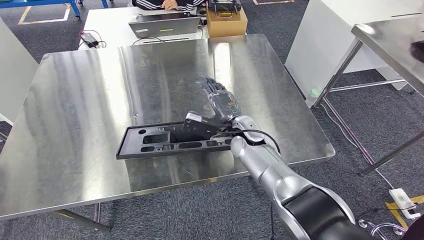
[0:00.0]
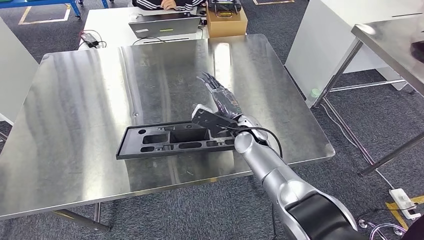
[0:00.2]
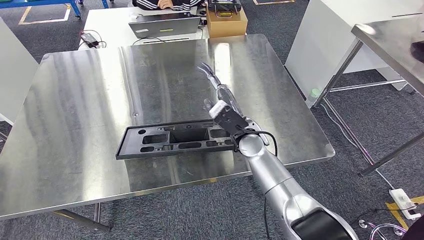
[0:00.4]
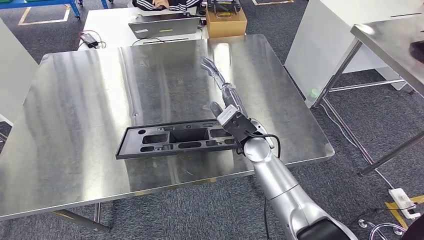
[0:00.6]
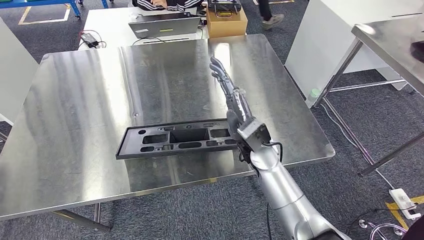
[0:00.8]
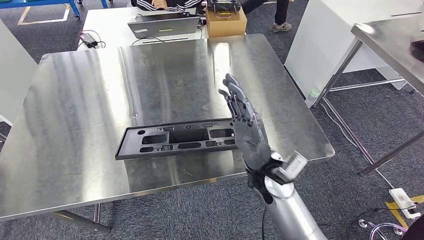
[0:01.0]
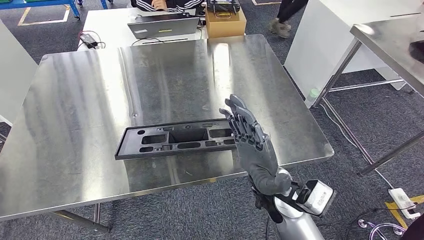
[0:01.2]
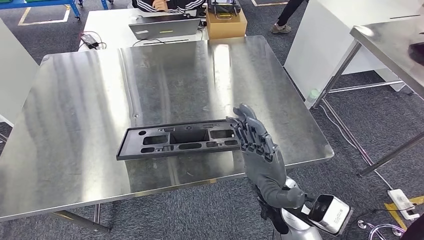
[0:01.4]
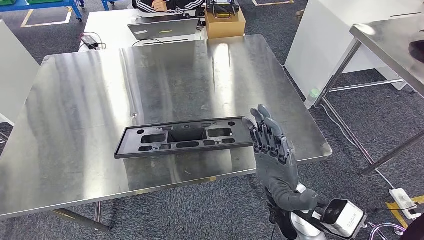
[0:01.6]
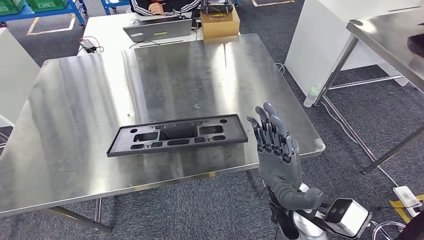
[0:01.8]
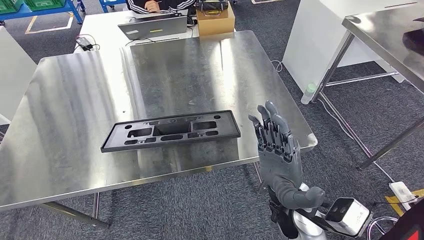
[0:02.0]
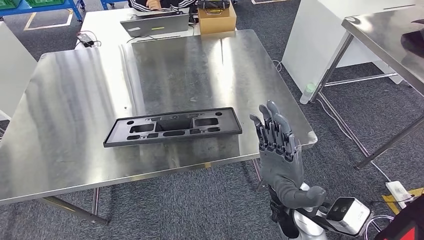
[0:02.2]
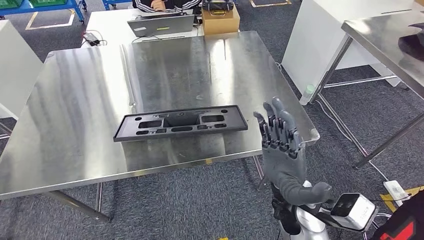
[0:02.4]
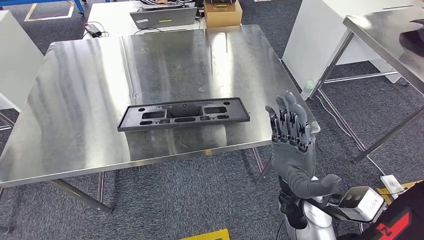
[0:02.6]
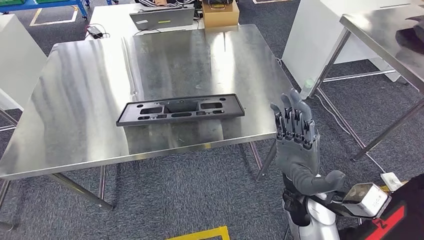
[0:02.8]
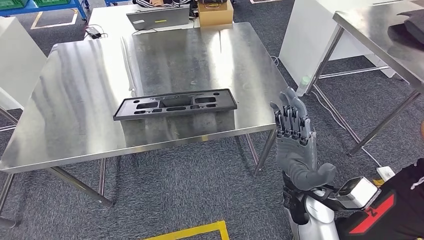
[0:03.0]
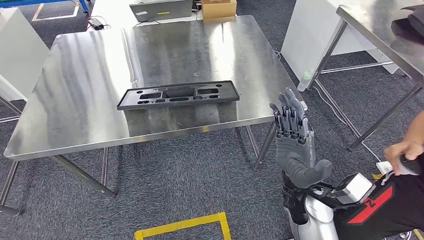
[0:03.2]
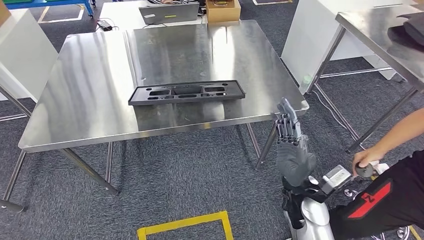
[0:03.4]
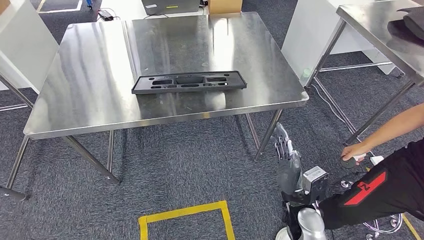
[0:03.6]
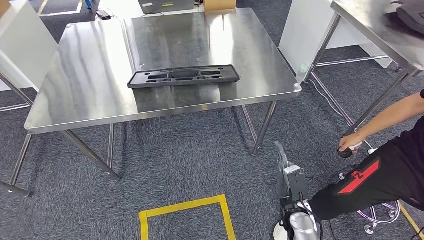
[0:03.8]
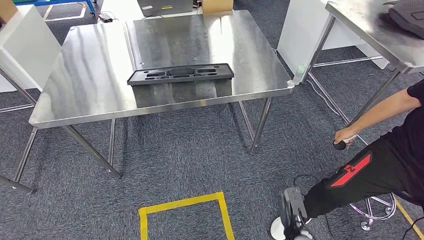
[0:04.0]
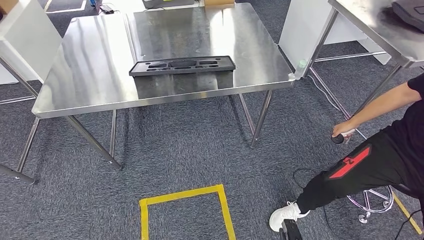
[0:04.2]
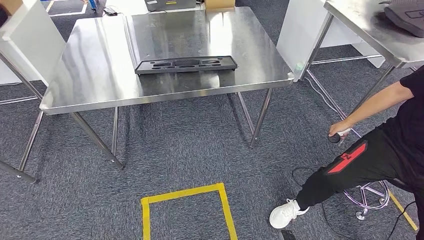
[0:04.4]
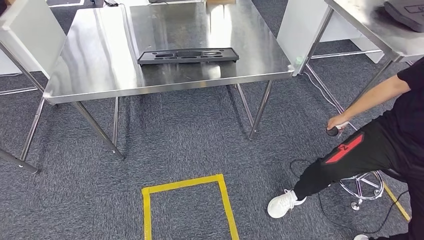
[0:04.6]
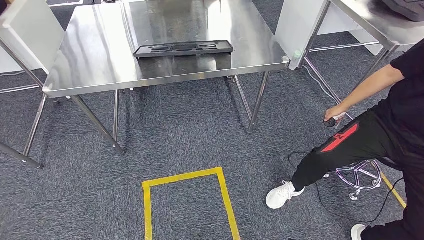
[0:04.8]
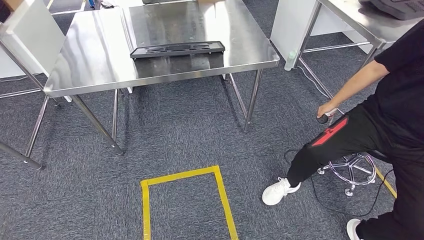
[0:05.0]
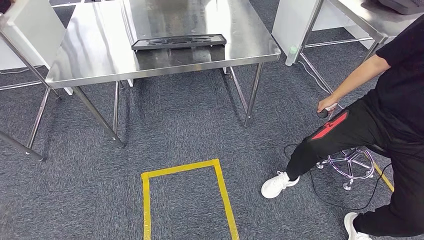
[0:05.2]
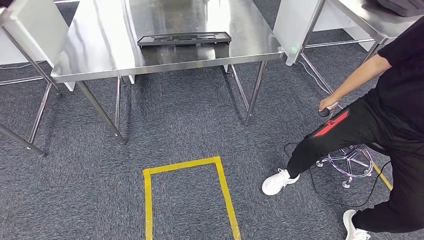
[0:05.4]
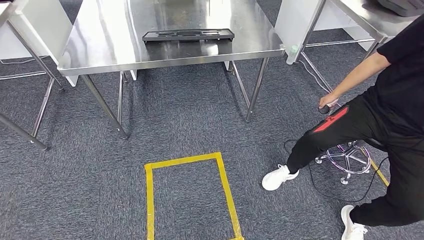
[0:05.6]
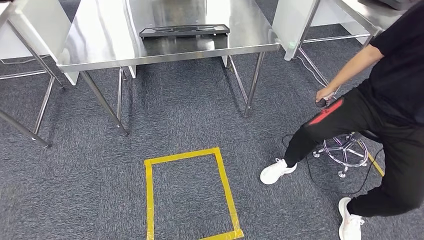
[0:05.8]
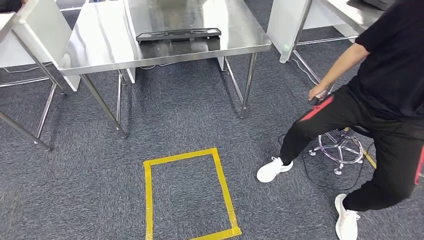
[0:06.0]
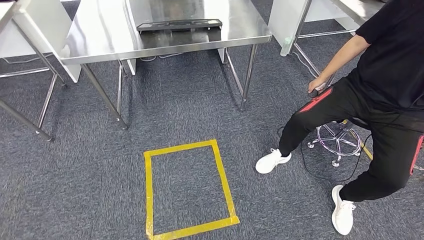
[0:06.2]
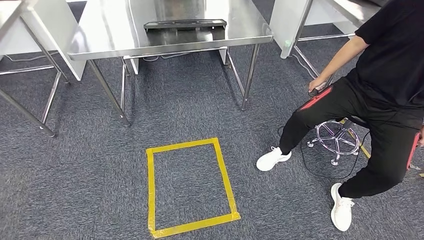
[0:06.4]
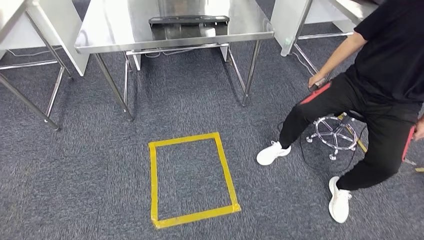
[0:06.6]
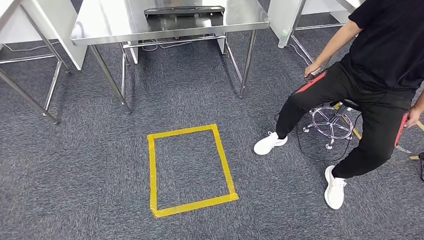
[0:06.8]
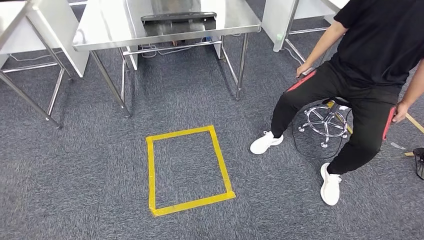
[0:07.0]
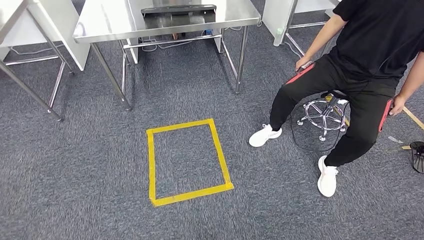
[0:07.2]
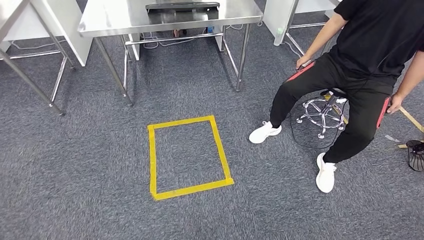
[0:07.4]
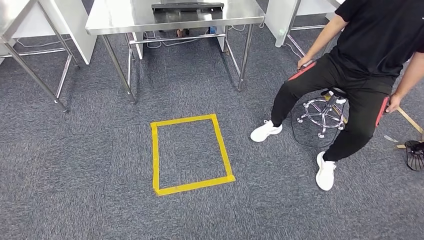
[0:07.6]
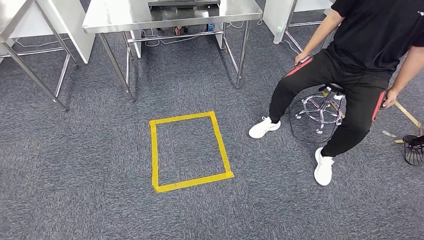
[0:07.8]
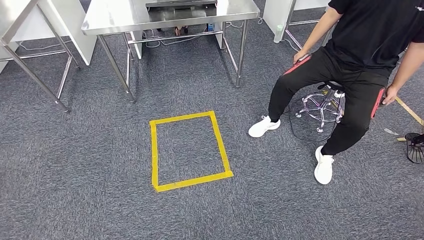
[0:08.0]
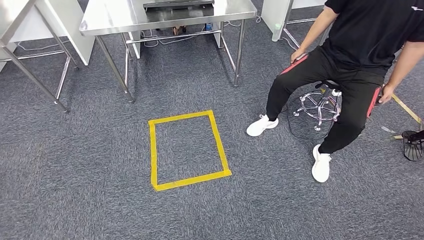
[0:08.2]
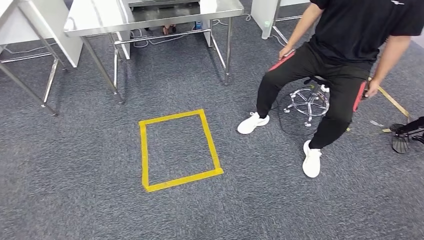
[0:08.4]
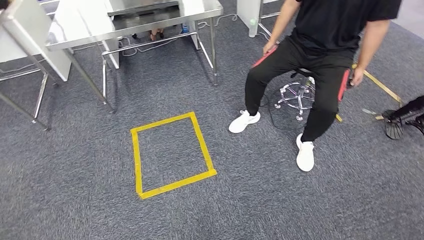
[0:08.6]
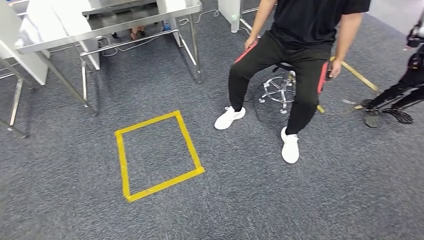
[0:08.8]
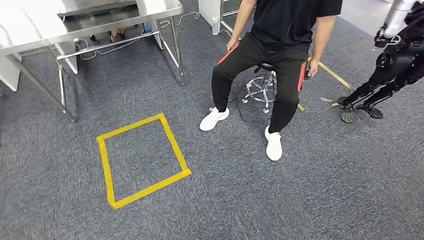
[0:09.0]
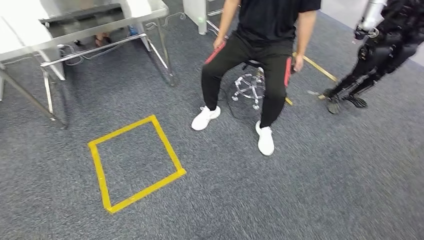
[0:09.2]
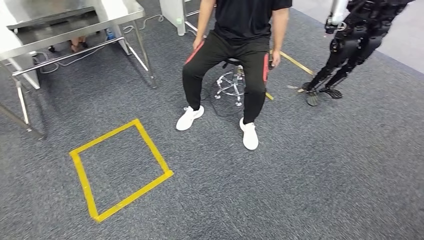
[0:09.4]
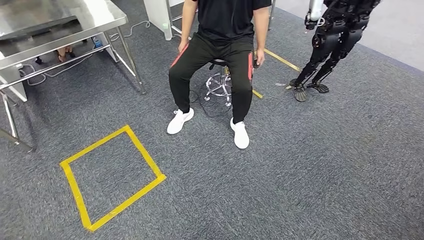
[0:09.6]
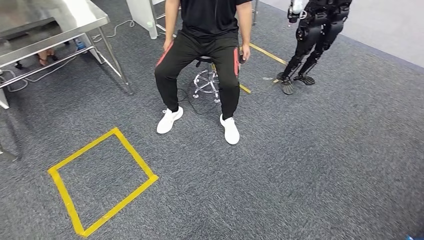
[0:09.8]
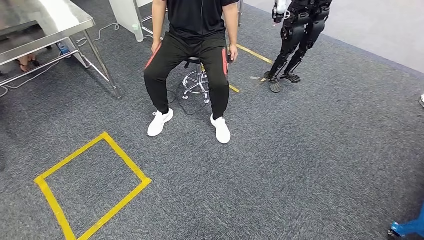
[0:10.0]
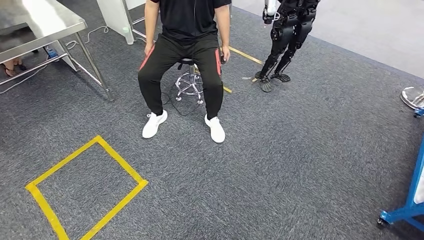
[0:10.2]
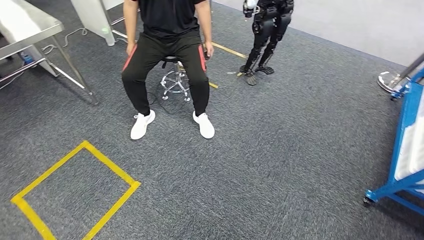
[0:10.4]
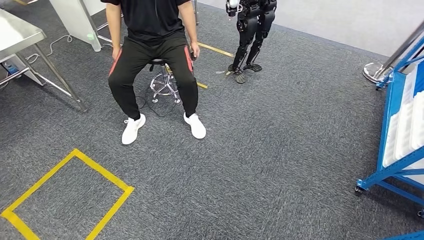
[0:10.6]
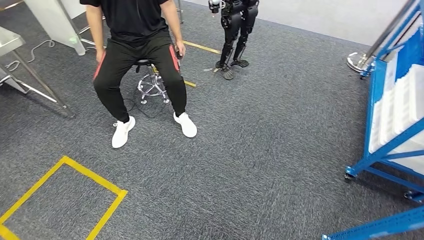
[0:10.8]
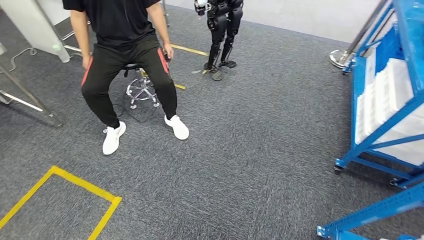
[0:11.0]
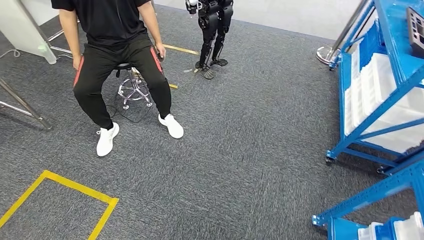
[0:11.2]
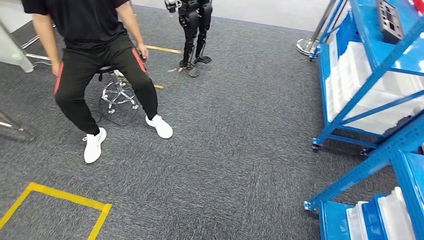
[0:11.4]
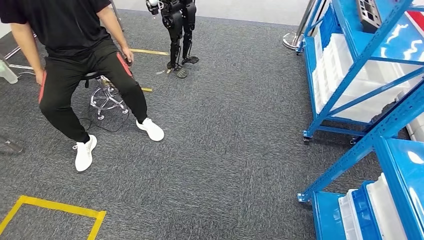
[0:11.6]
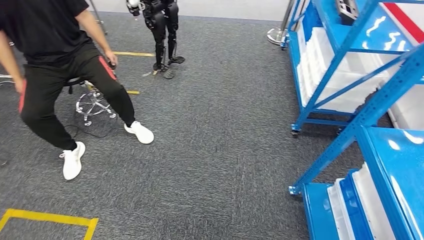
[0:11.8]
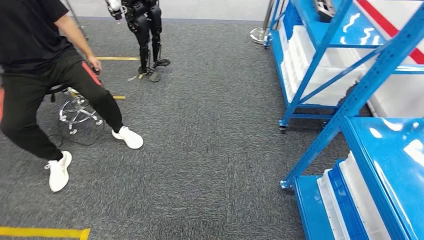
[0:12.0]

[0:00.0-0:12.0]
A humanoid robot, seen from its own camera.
Step, 0:00.0 to 0:03.6: Insert the large material into the corresponding slot on the workbench.
0:00.0 to 0:01.6: The right hand shifts about 20 cm backward.

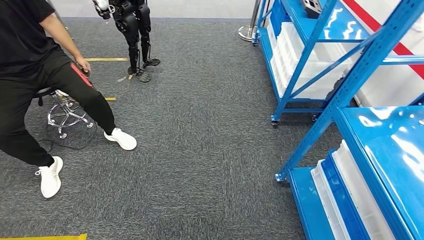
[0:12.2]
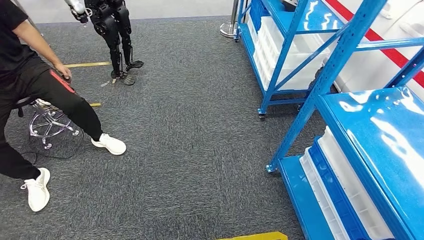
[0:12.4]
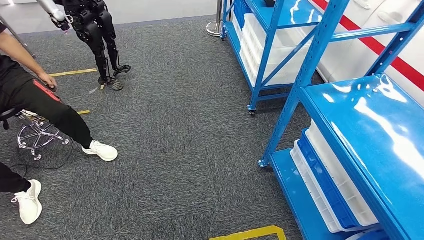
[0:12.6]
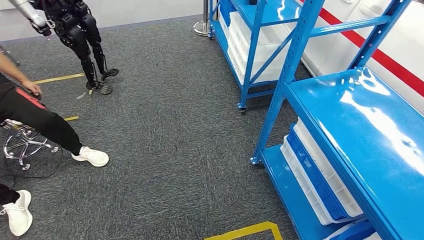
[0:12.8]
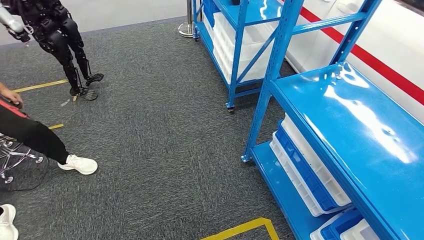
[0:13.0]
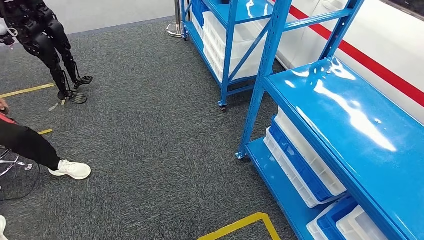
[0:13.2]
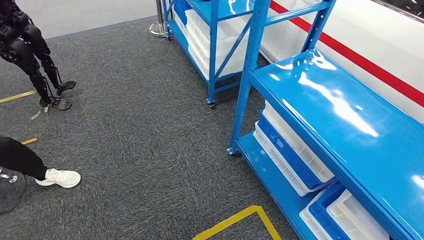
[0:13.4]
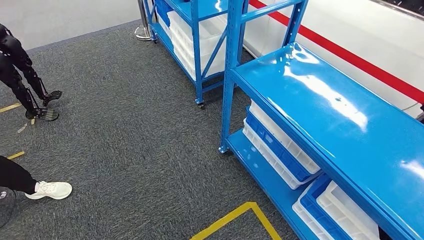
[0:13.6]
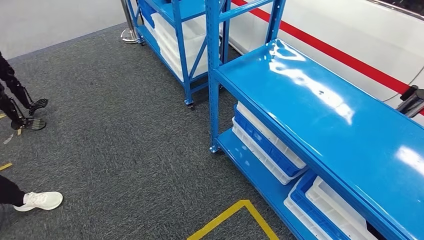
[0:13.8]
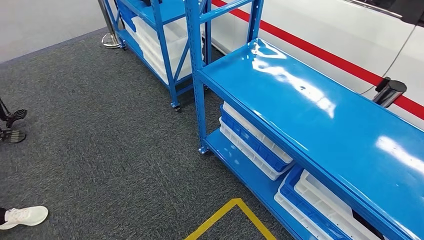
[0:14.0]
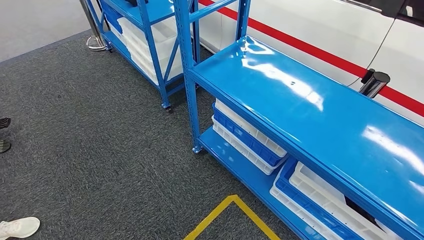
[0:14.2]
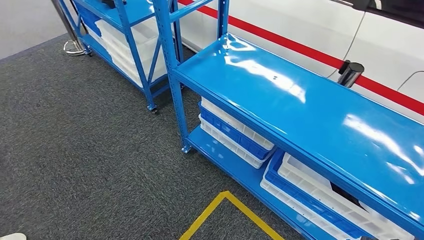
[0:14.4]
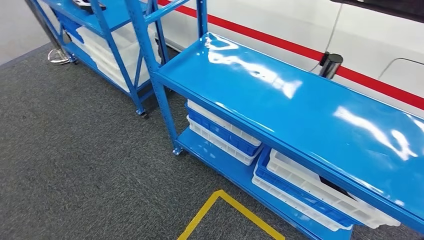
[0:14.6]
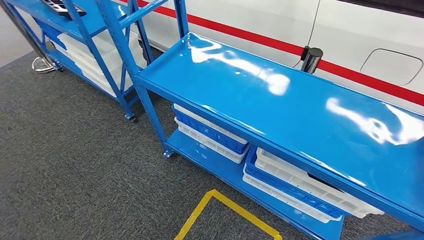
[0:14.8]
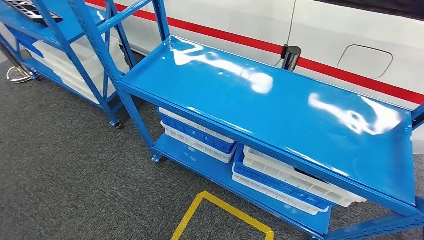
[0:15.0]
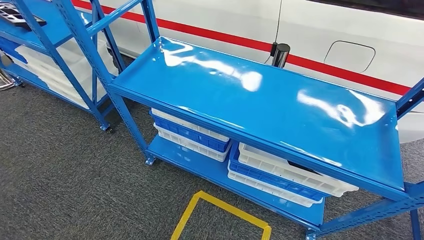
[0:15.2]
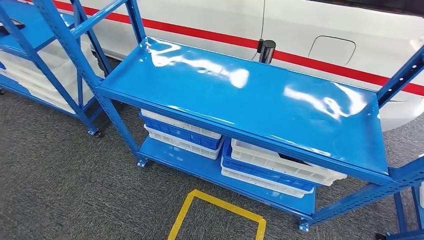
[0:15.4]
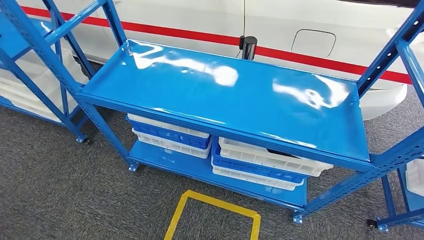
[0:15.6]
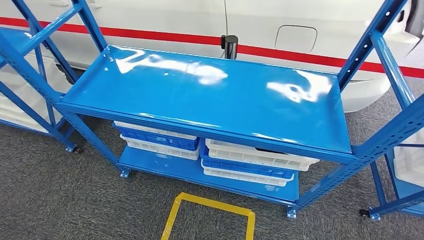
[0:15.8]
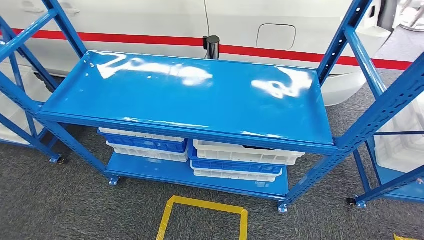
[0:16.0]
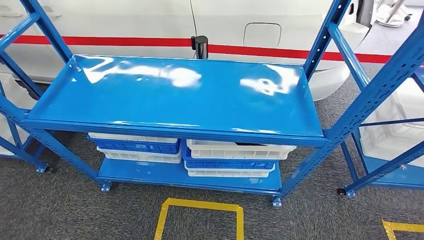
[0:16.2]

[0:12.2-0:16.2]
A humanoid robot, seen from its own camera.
Step, 0:12.2 to 0:16.2: Return to the initial position at the shelf.
